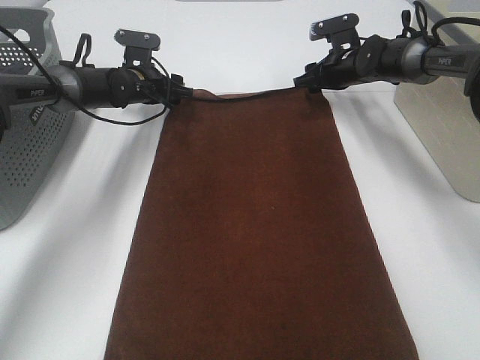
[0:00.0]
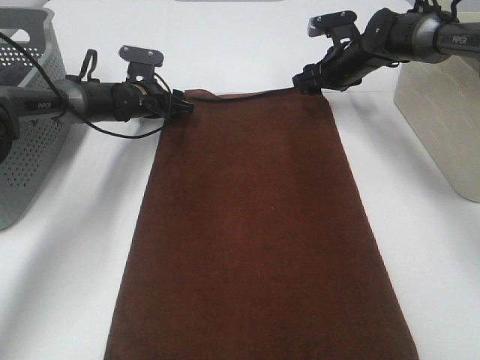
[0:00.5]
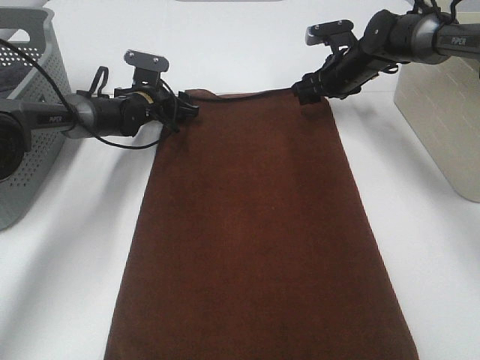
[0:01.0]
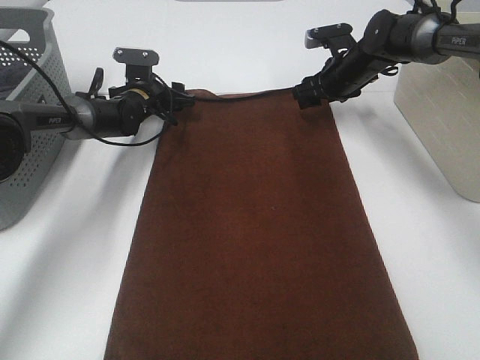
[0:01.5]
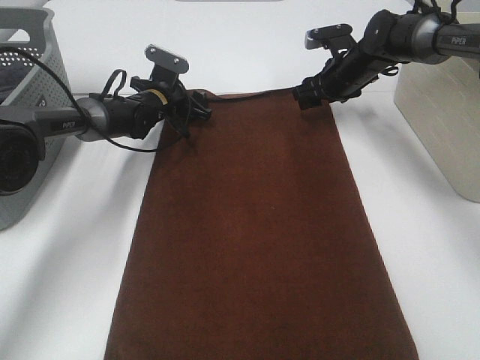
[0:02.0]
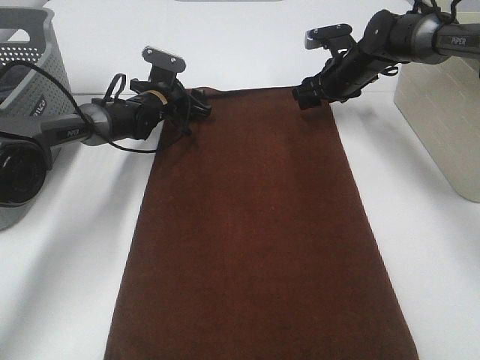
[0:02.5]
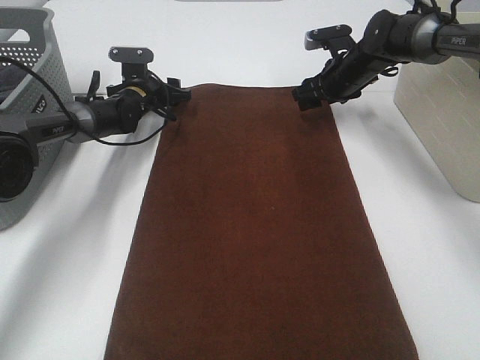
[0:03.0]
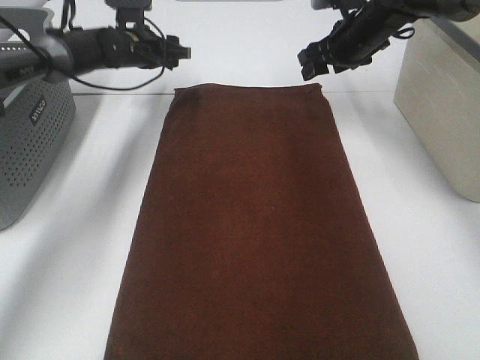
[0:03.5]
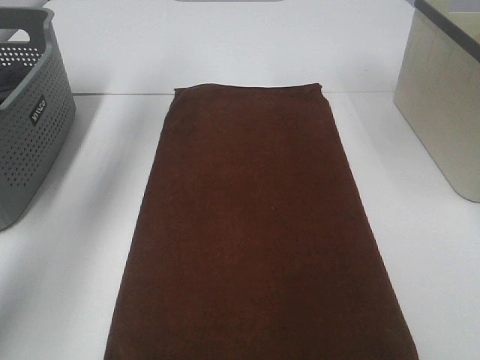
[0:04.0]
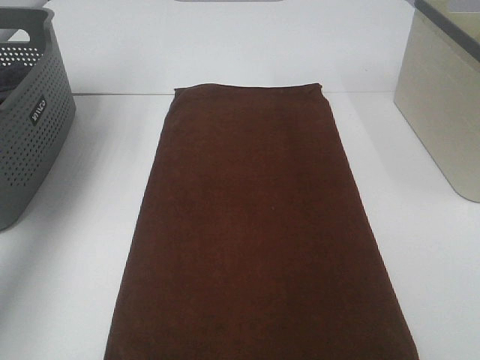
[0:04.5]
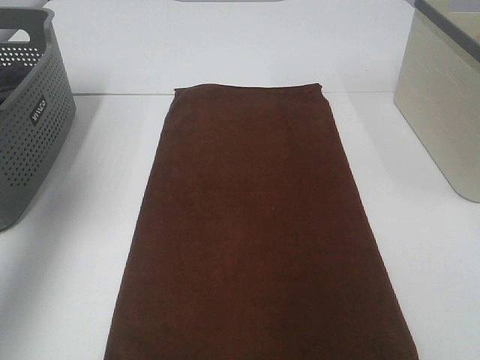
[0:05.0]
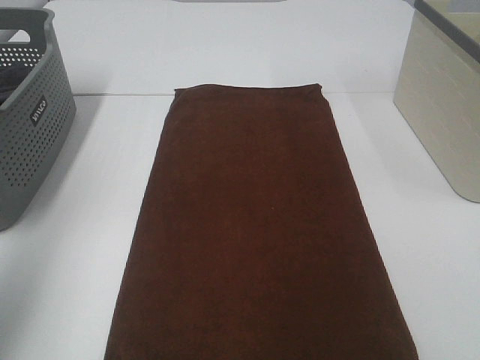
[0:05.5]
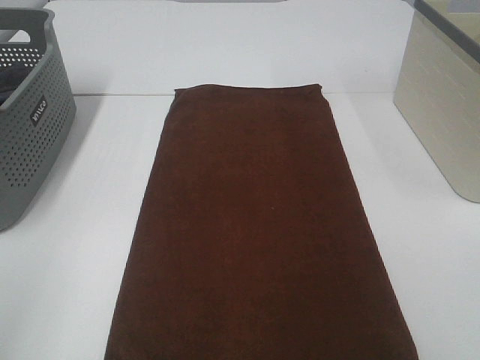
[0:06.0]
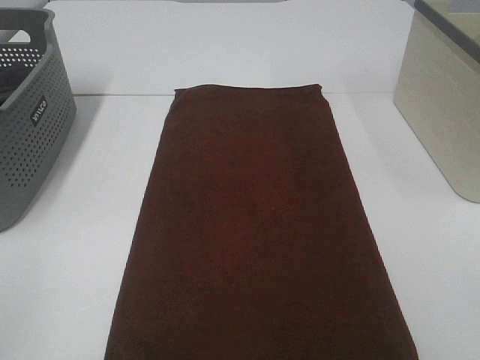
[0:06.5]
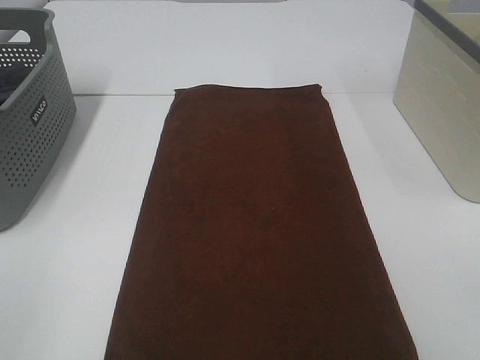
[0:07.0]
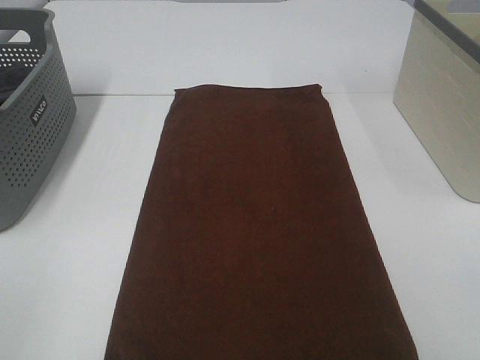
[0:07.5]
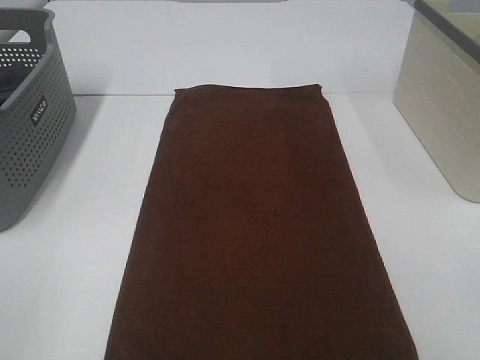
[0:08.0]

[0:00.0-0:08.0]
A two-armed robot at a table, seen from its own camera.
Task of the whole recording: Remove the towel and place it.
0:02.0 to 0:04.0: Both grippers travel together upward, about 30 cm.
0:04.0 to 0:06.0: The two grippers go roughly 50 cm backward.

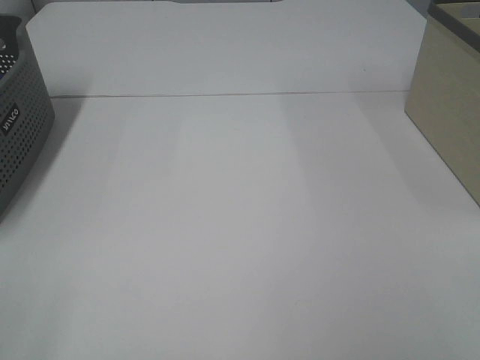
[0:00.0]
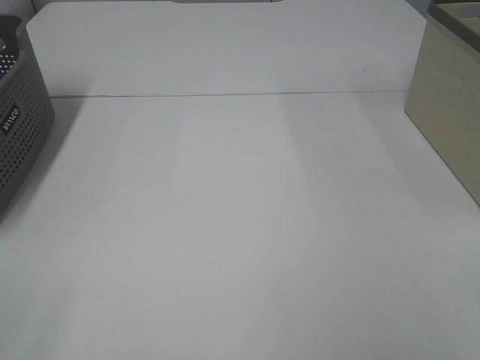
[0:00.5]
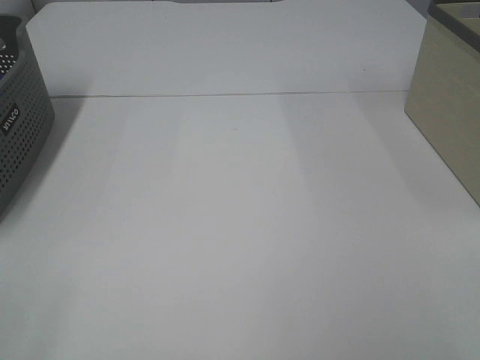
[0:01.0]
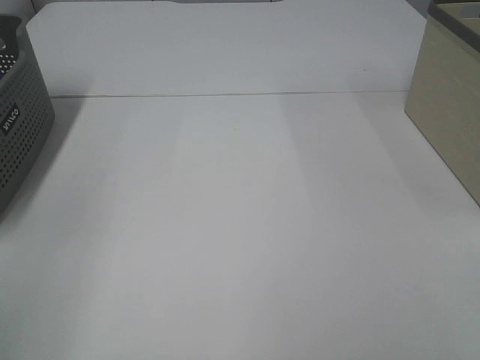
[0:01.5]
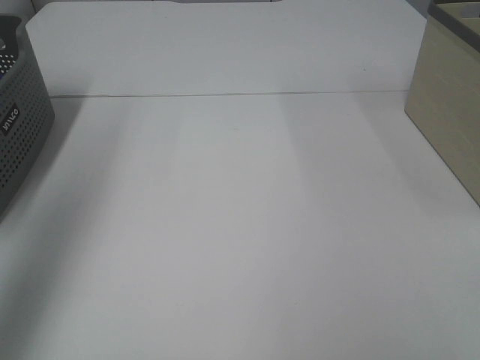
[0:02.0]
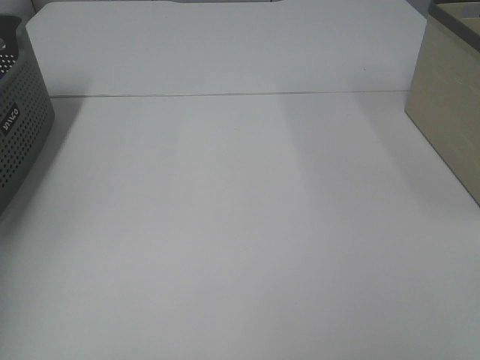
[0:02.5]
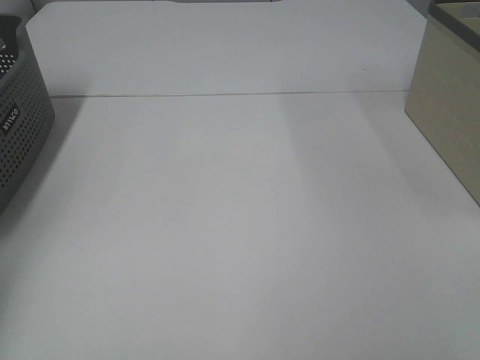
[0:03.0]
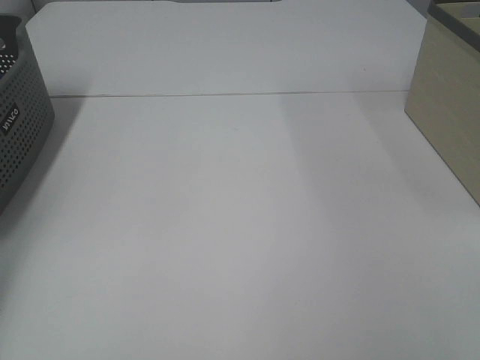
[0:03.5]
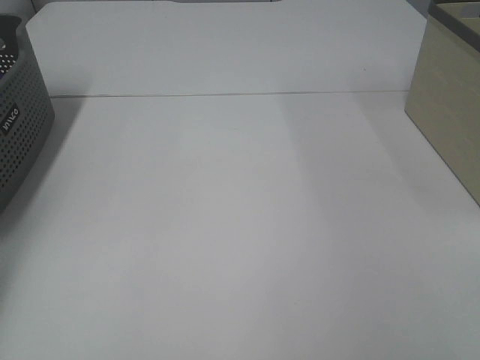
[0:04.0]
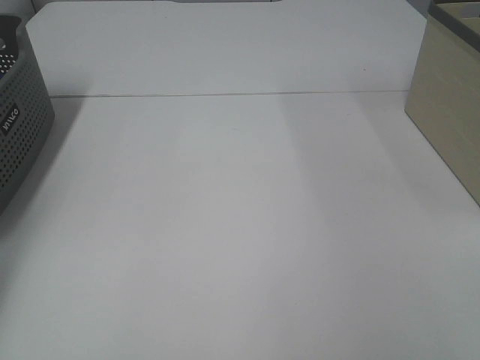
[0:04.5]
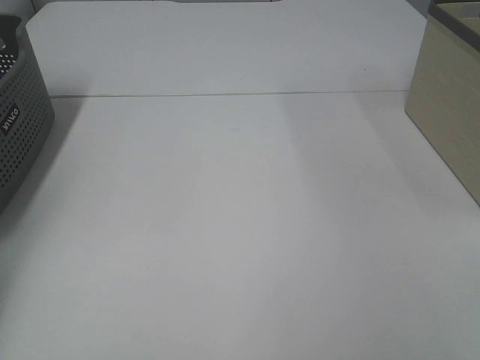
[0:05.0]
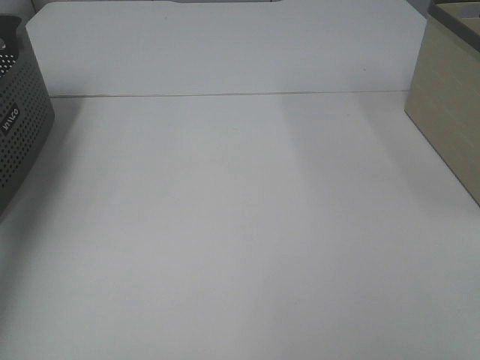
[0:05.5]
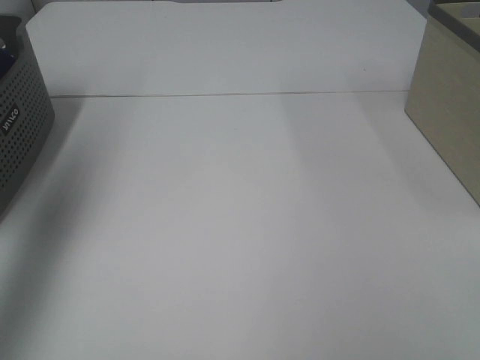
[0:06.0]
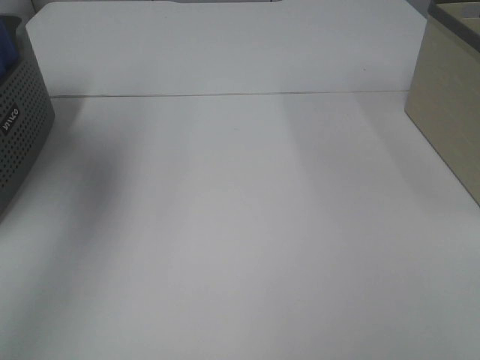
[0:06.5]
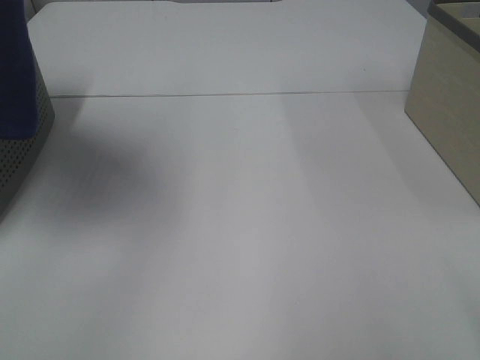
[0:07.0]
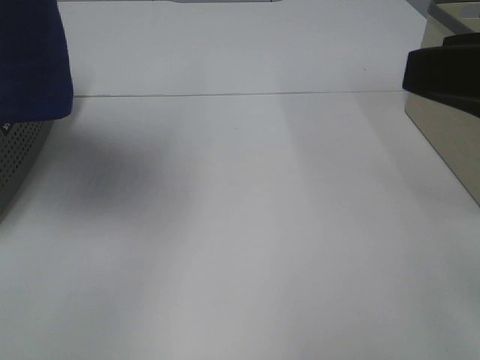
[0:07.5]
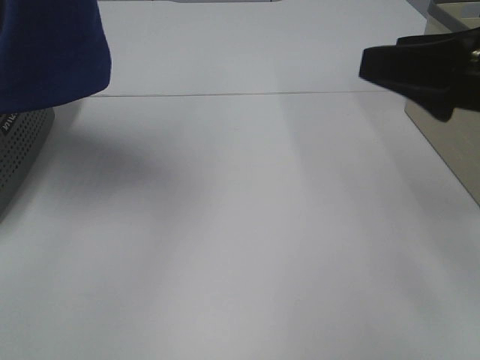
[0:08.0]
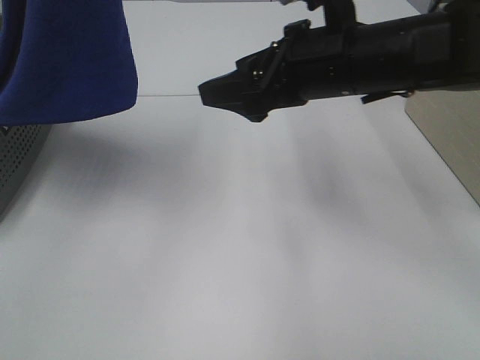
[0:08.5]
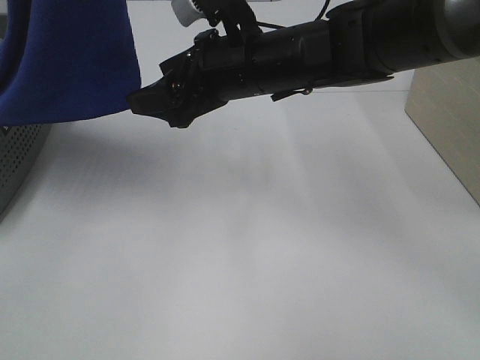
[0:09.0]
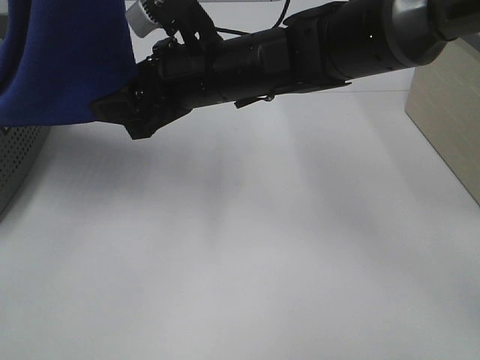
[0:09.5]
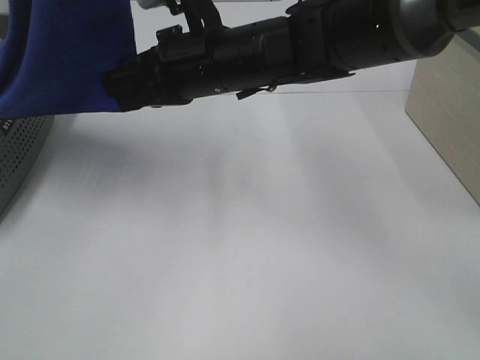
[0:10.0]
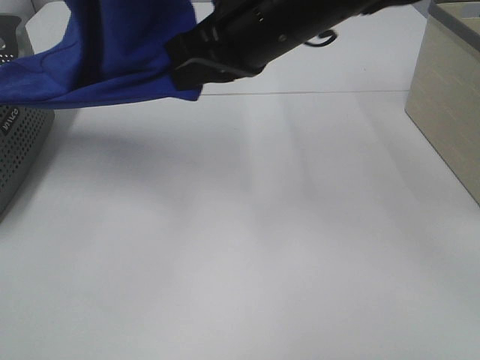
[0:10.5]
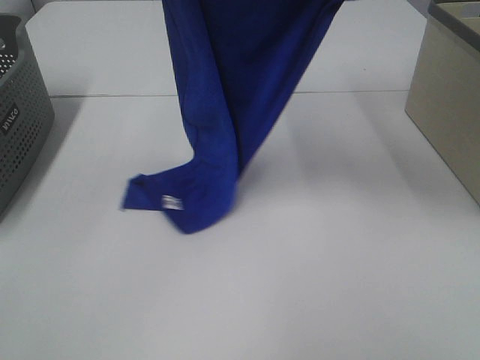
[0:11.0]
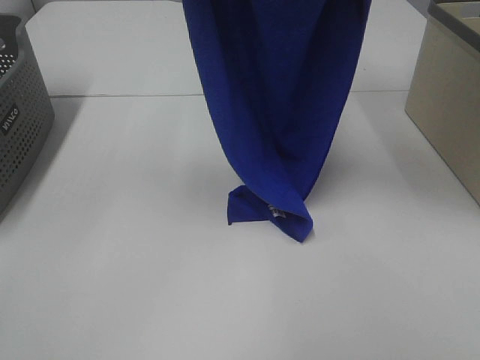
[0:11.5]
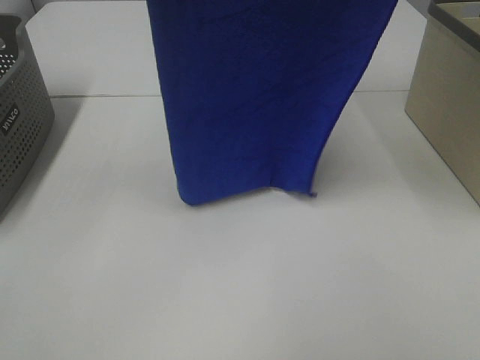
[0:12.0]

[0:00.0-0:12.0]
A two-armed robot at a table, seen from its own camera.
Task of the whole recording: Remove the towel and place it.
Step, 0:07.5 to 0:09.5: Right hand: grab a corner of the blue towel and straighten it.
0:00.0 to 0:02.0: The left gripper travels forward and upward by about 25 cm.
0:02.0 to 0:04.0: The left gripper goes approximately 35 cm downward, forward and to the left.
0:04.0 to 0:06.0: The left gripper moves upward and backward, some 35 cm, and closes up.
0:06.0 to 0:08.0: The right gripper is displaced forward by approximately 20 cm, while the left gripper shifts roughly 15 cm to the right.
0:08.0 to 0:10.0: The right gripper moves to the left and forward, approximately 25 cm, and closes.
0:10.0 to 0:12.0: The right gripper moves upward and to the right, approximately 35 cm.

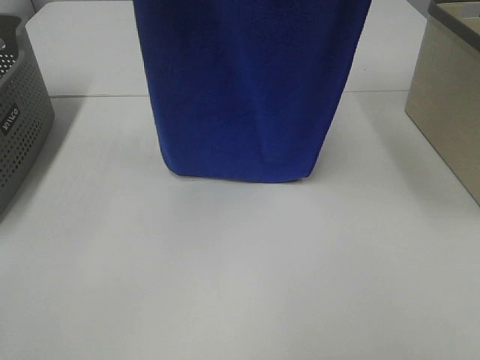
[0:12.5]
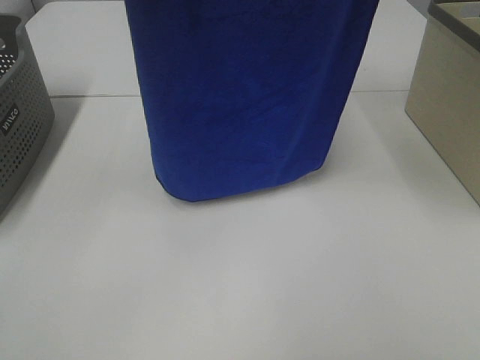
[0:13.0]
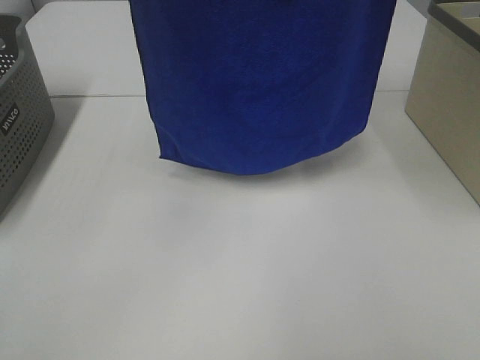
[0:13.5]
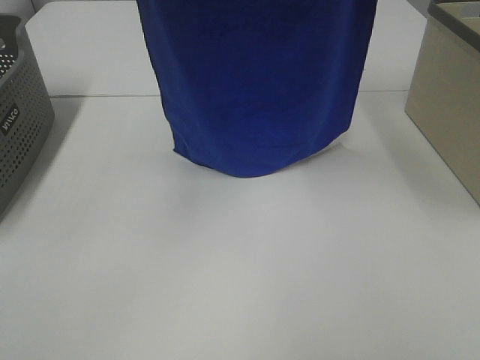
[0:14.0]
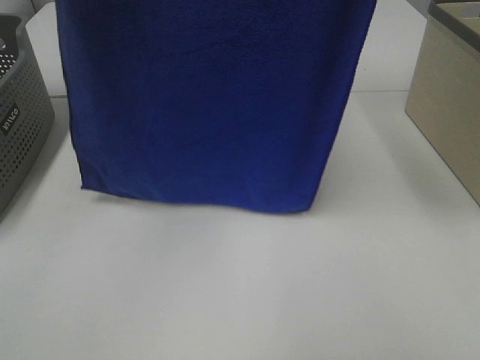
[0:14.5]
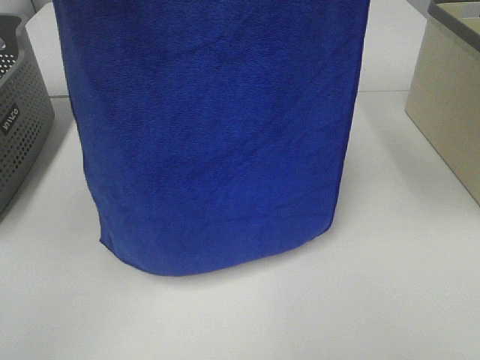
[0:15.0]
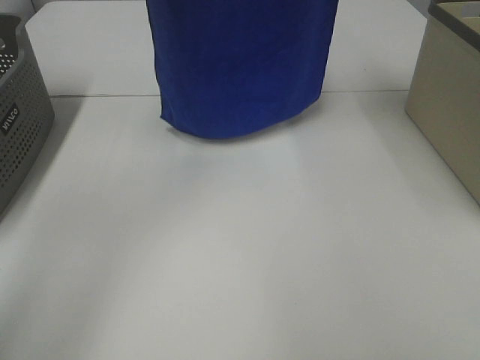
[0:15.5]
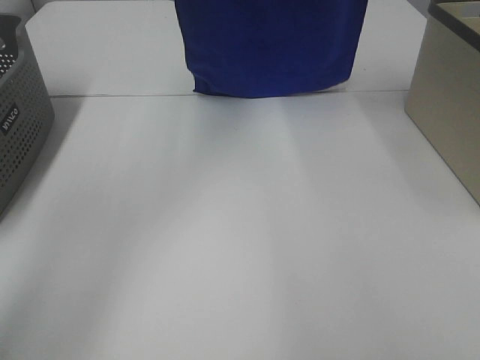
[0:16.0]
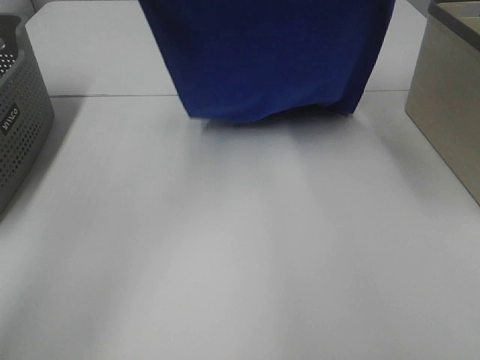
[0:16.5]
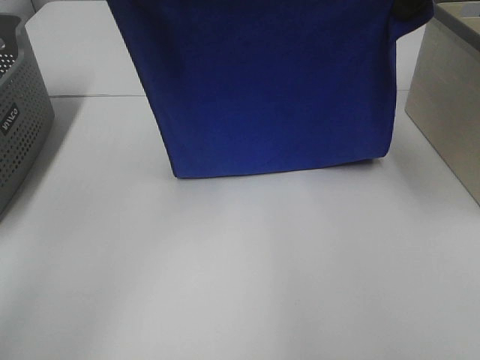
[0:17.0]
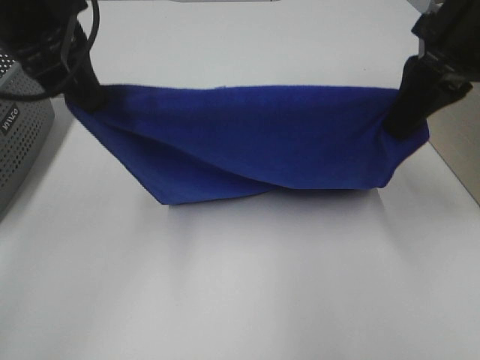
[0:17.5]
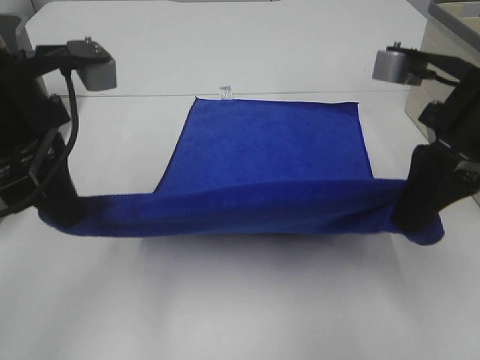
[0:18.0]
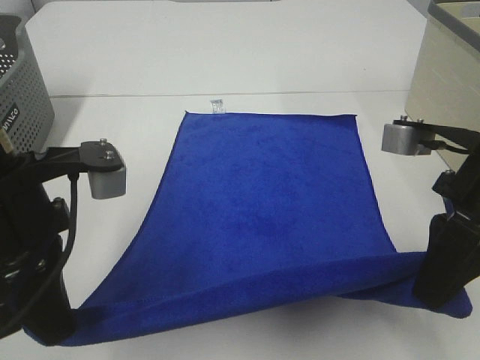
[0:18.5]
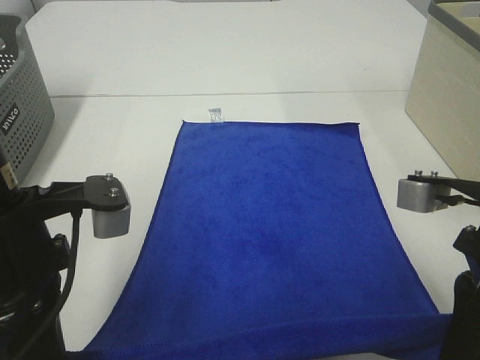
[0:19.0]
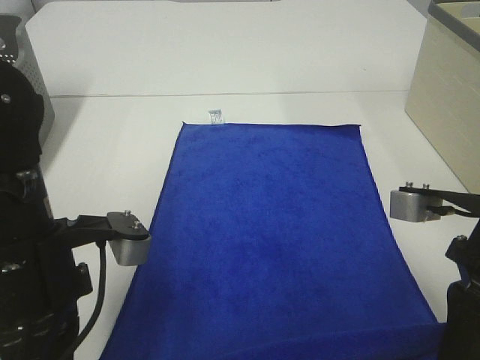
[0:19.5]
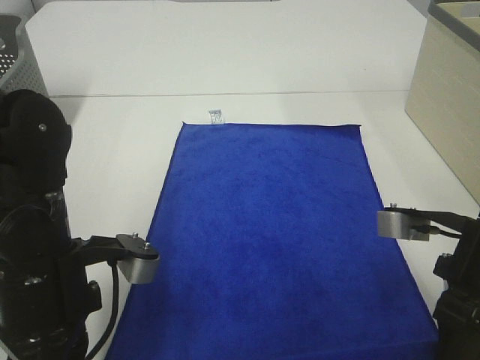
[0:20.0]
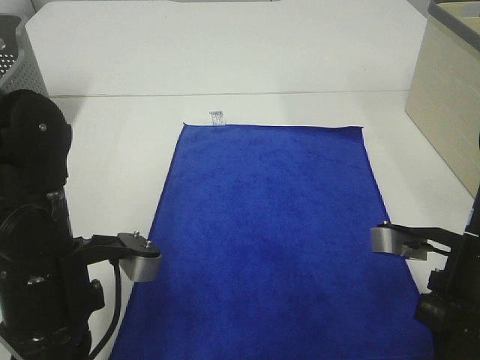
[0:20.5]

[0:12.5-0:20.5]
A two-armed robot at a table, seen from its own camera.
Task of the whole recording: Remove the towel and place it.
Step, 0:12.5 to 0:17.5: Left hand: spread the blue towel flat on the table.
Step, 0:12.5 to 0:17.5: Right hand: spread the blue towel flat on the table.
0:12.5 to 0:14.5: The left gripper heads backward, covering some 5 cm.
0:14.5 to 0:16.5: The two grippers go roughly 20 cm forward and downward.
0:16.5 to 0:18.5: The left gripper travels backward and downward by some 25 cm. The right gripper moves downward and backward, approximately 25 cm.
0:18.5 to 0:20.5: Both grippers move downward, roughly 10 cm.
